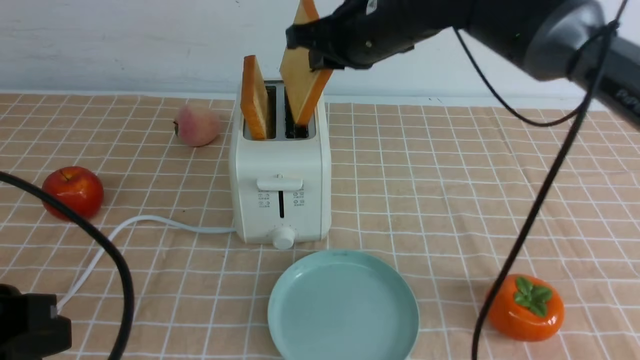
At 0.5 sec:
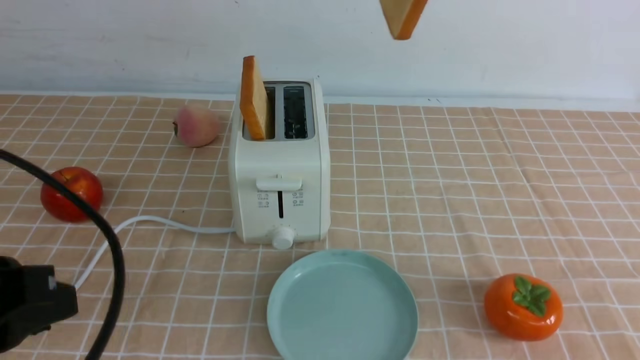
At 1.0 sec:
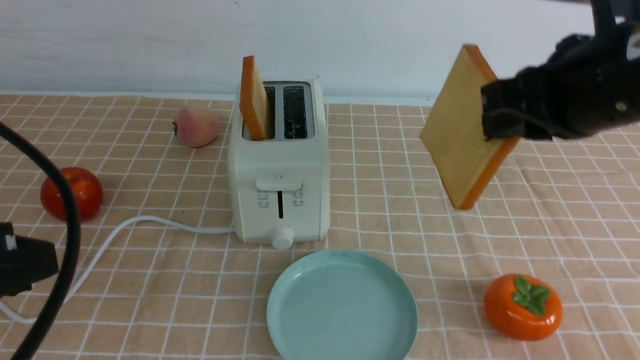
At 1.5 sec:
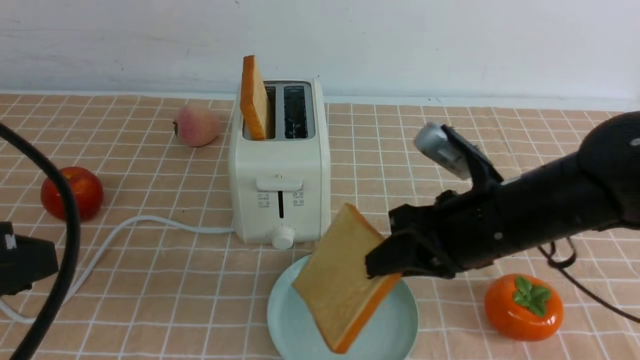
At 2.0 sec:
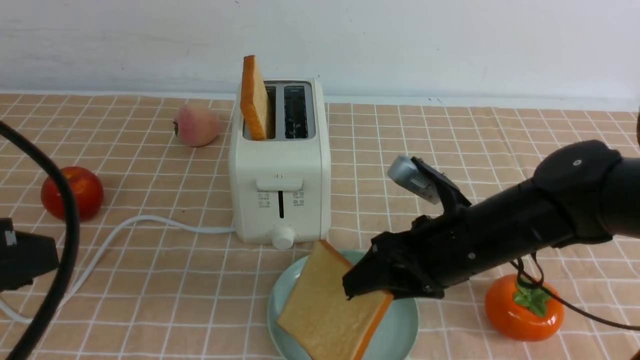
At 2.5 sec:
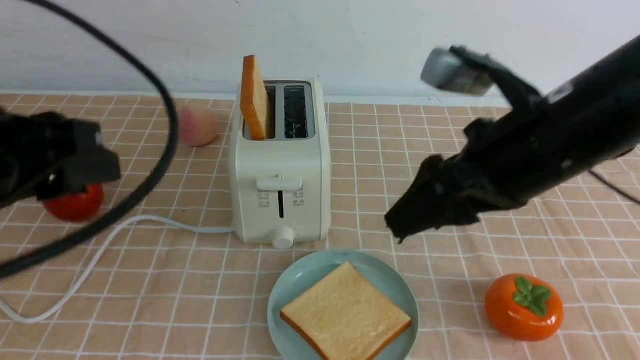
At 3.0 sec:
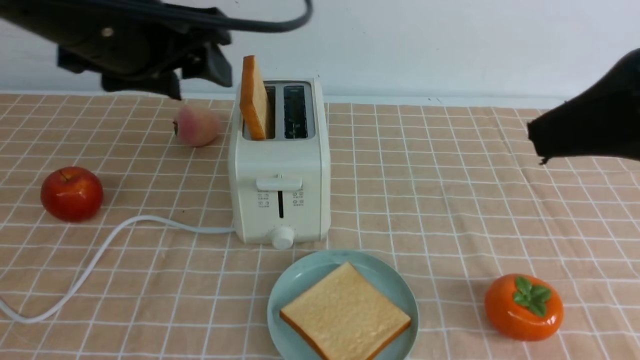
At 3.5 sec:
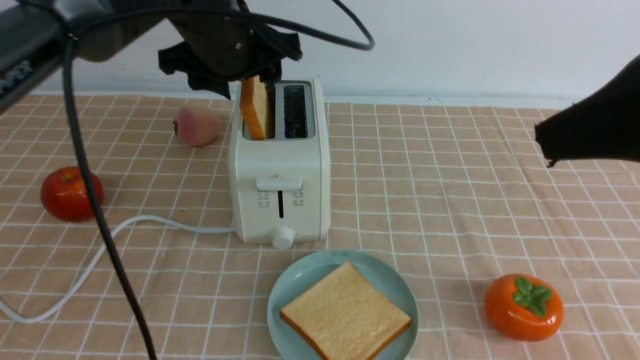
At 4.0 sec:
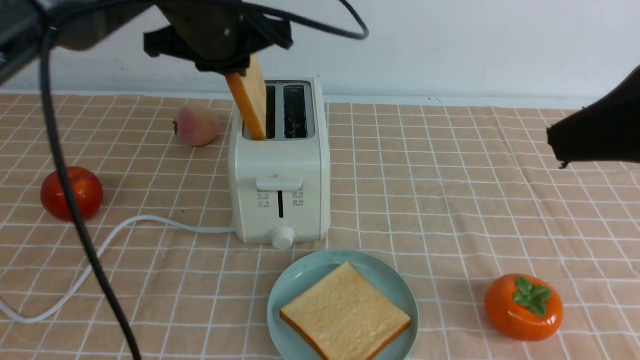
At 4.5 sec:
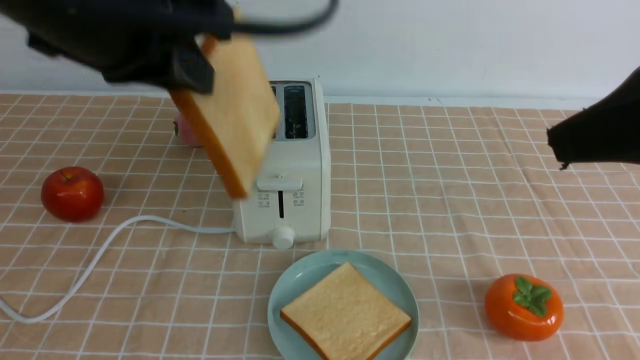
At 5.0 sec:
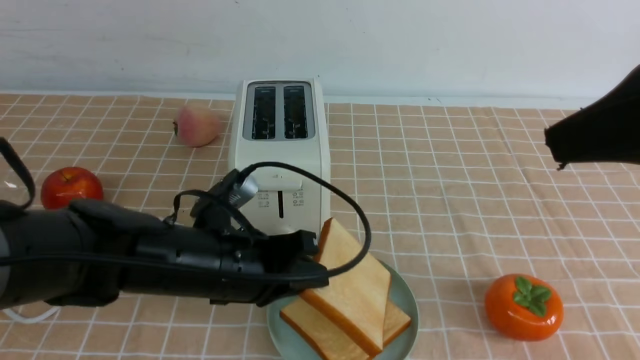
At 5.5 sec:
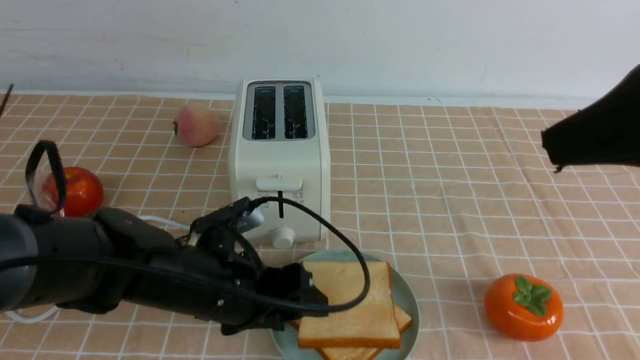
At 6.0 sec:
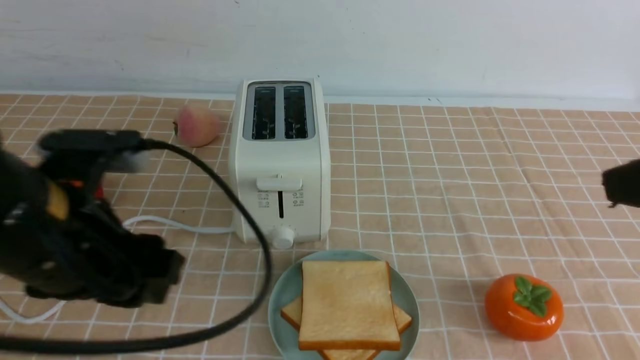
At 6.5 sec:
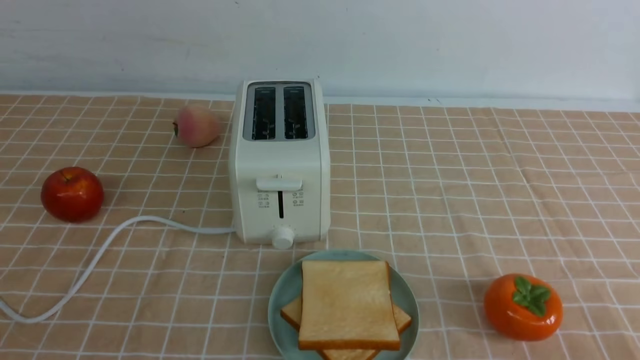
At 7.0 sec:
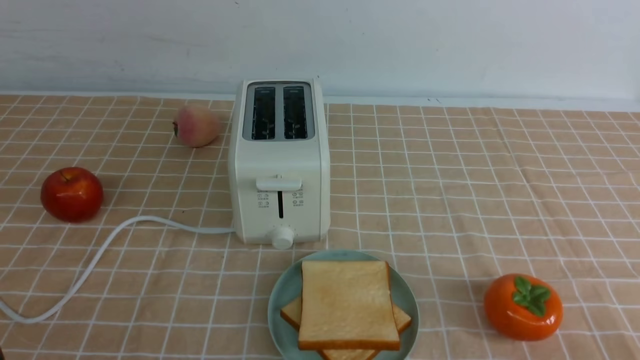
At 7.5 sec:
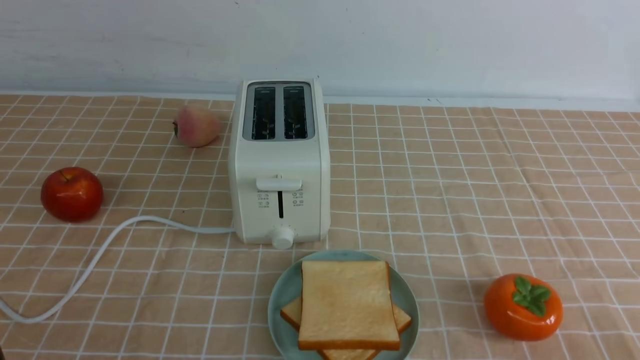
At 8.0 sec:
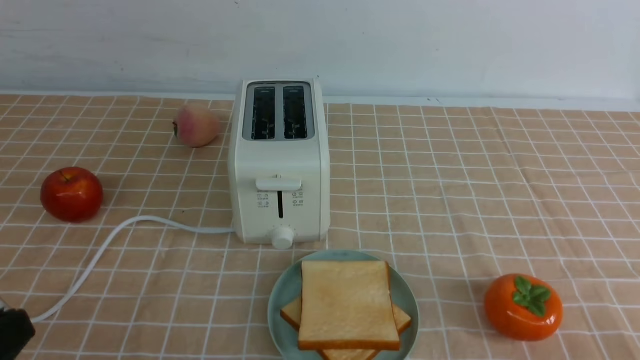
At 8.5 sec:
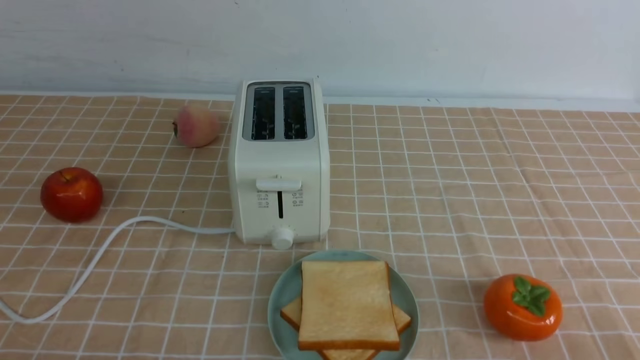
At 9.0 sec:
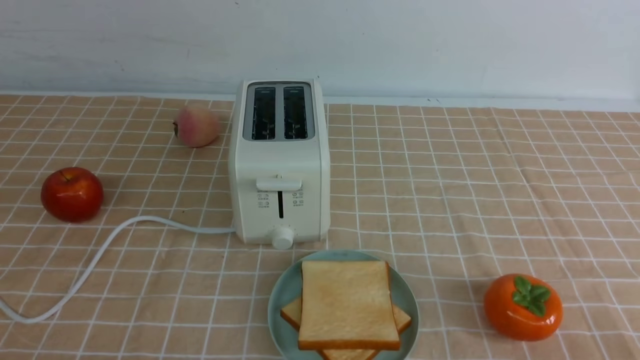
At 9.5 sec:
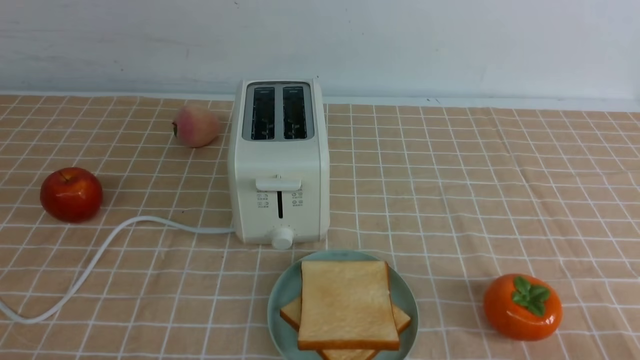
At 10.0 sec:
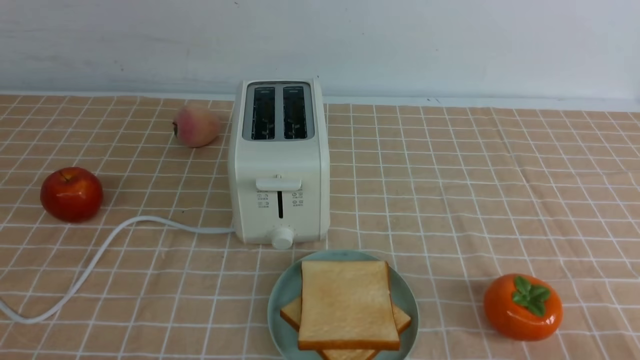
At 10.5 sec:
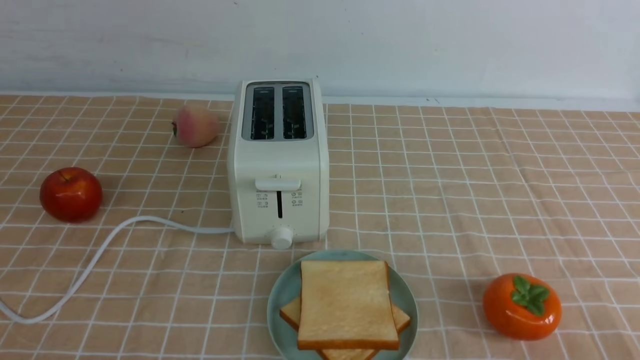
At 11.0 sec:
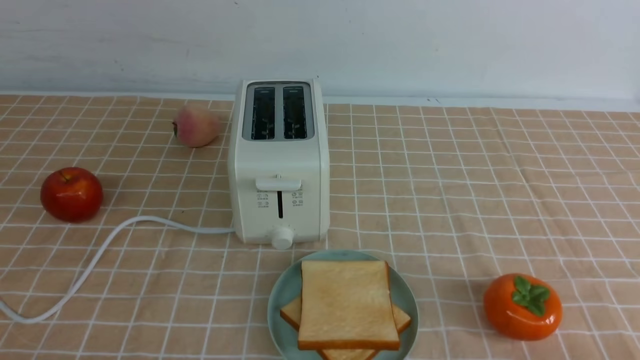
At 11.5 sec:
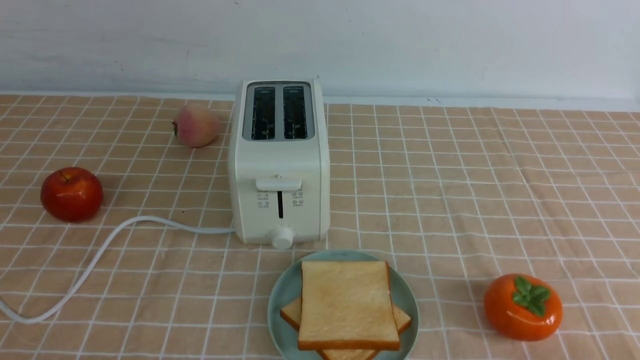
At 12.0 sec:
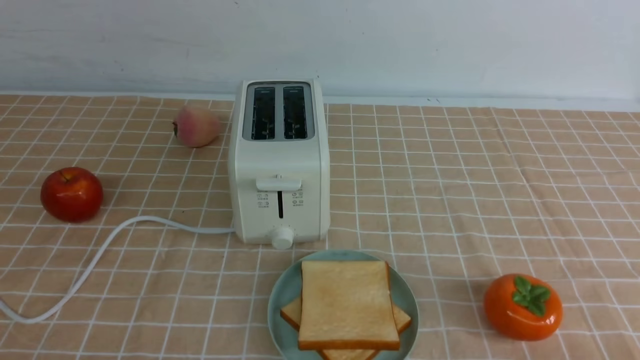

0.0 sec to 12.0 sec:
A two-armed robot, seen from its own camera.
Task of the whole recording: take toasted bread from bread machine on light coffee tablecloth place on plate.
Step, 0.5 sec to 2.0 sec: use the right arm to put a slice of bread into the plate.
Step, 2.5 sec to 4.0 sec: use the left arm to take out a slice of bread.
Step, 4.5 sec to 5.5 sec: use the left arm to put a slice of bread into the empty plate.
0.0 sec to 2.0 sec: The right gripper is displaced downward, backward and to the right by some 20 cm, and opens its fingers.
2.0 sec to 4.0 sec: The left gripper shifts some 30 cm forward and to the right, and opens and closes again. The right gripper shifts some 25 cm upward and backward.
4.0 sec to 6.0 sec: The right gripper goes approximately 5 cm downward, and closes. Meanwhile the left gripper moves backward and downward, about 20 cm, and opens up.
6.0 sec to 8.0 sec: The left gripper travels backward and to the left by approximately 15 cm, and closes up. Meanwhile the right gripper shifts some 20 cm downward and backward.
8.0 sec to 10.0 sec: The left gripper goes roughly 10 cm downward.
